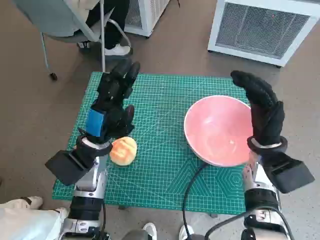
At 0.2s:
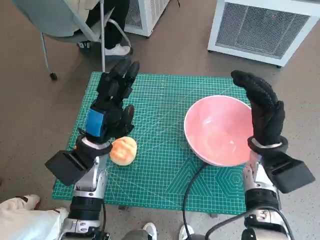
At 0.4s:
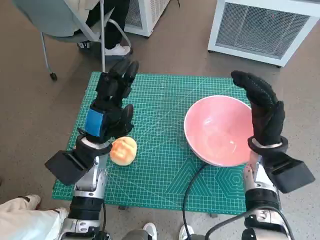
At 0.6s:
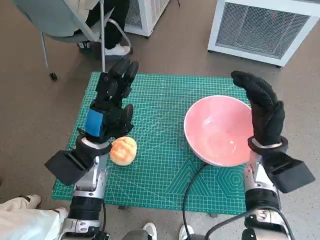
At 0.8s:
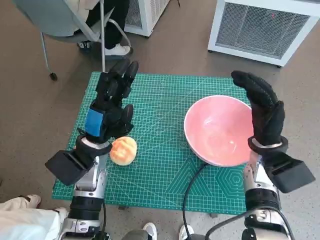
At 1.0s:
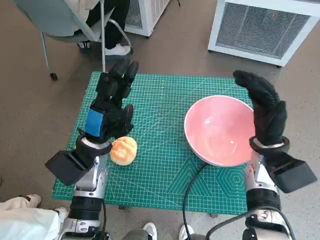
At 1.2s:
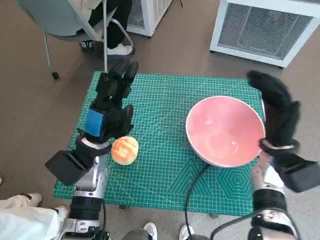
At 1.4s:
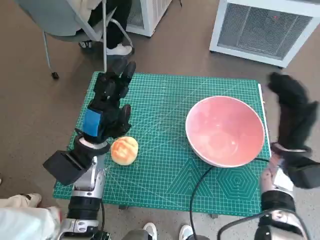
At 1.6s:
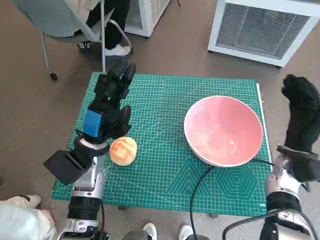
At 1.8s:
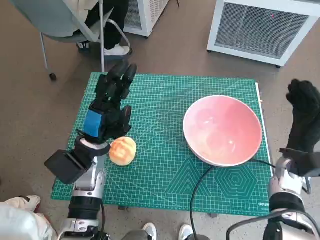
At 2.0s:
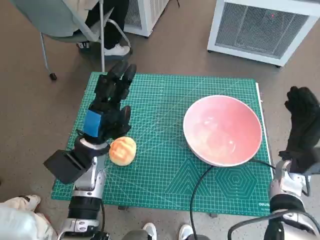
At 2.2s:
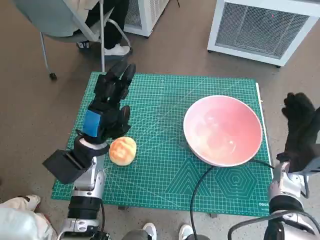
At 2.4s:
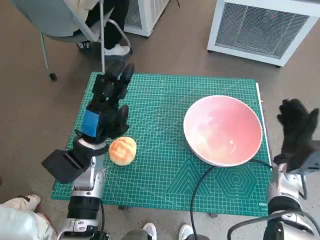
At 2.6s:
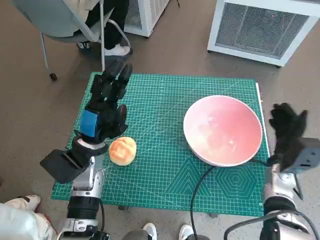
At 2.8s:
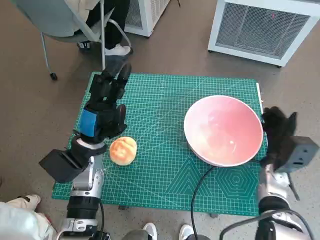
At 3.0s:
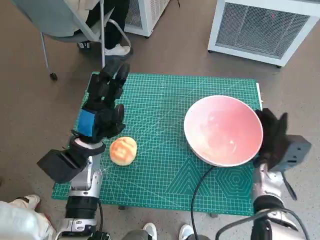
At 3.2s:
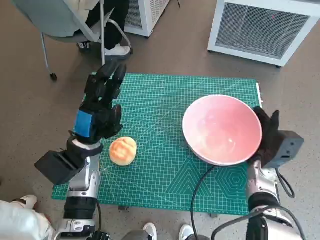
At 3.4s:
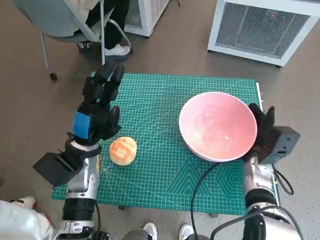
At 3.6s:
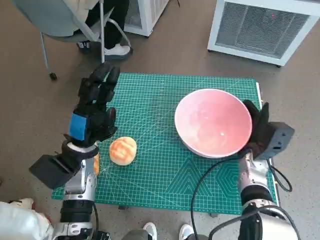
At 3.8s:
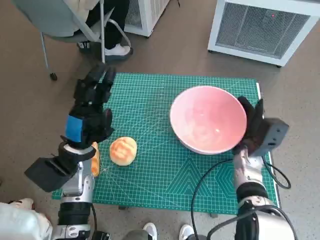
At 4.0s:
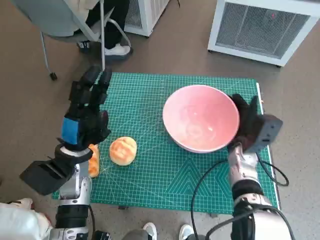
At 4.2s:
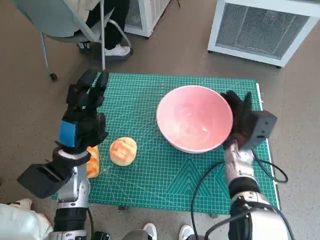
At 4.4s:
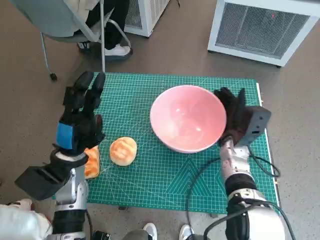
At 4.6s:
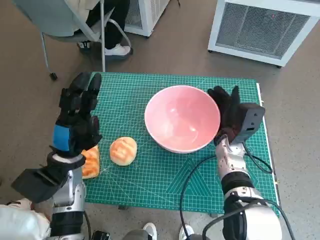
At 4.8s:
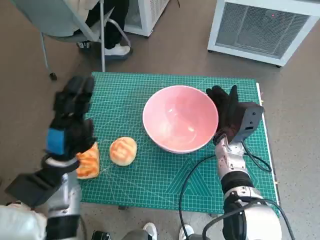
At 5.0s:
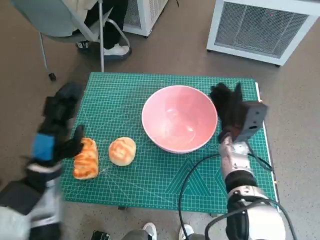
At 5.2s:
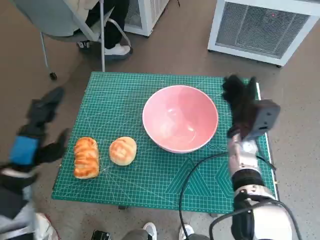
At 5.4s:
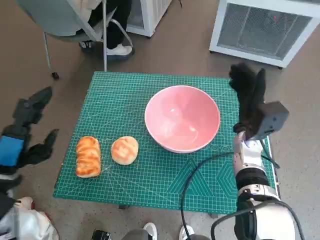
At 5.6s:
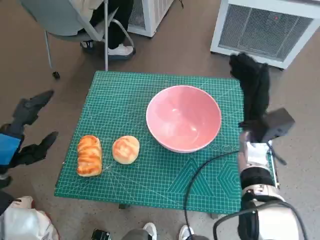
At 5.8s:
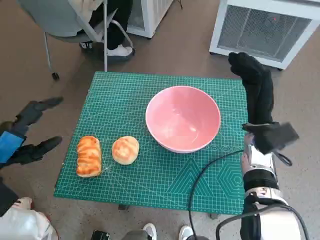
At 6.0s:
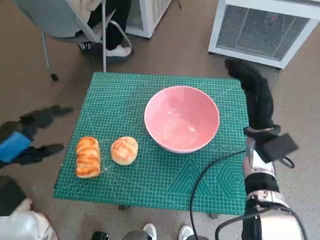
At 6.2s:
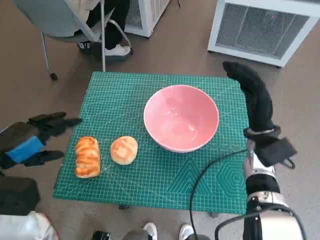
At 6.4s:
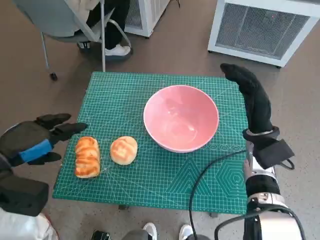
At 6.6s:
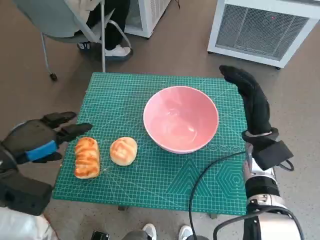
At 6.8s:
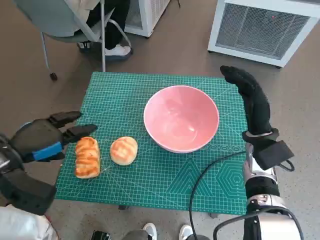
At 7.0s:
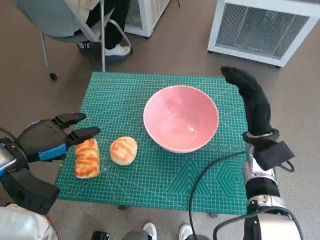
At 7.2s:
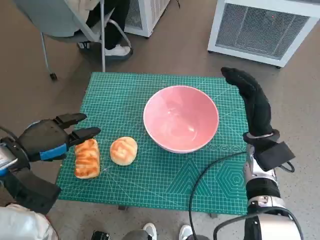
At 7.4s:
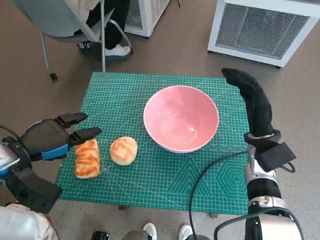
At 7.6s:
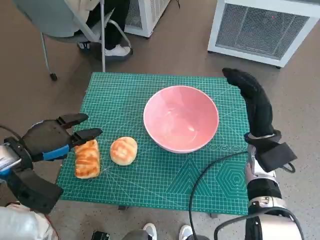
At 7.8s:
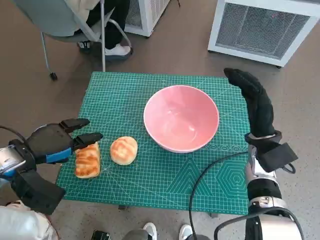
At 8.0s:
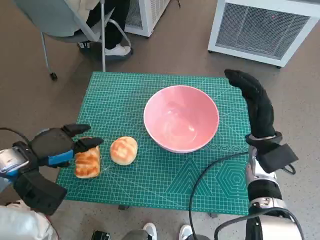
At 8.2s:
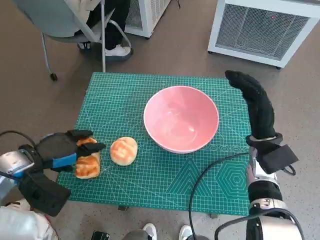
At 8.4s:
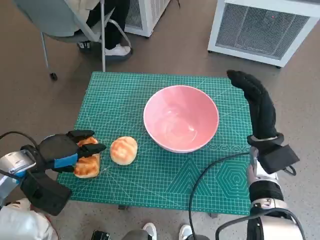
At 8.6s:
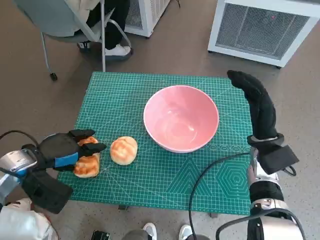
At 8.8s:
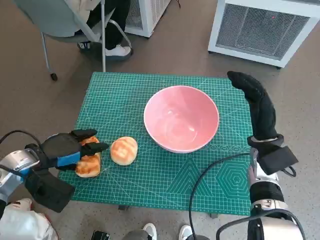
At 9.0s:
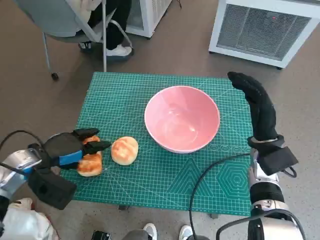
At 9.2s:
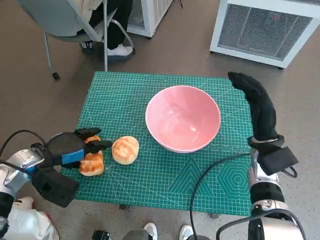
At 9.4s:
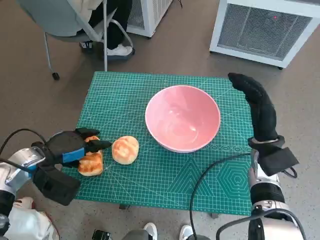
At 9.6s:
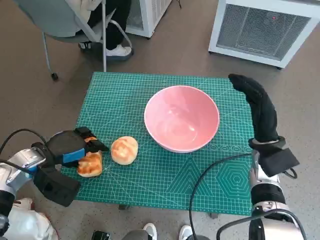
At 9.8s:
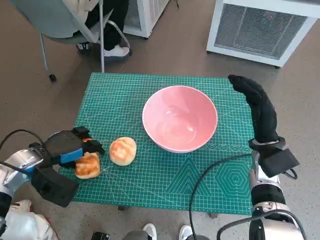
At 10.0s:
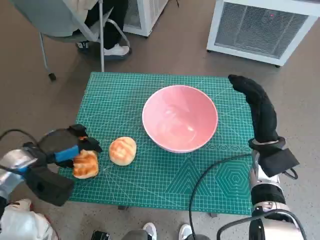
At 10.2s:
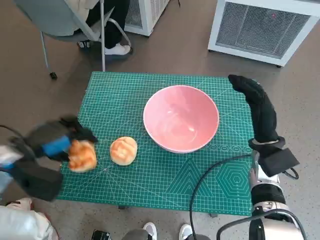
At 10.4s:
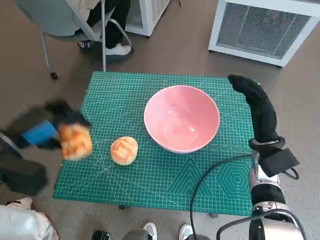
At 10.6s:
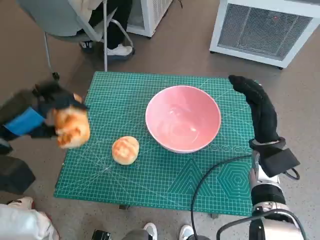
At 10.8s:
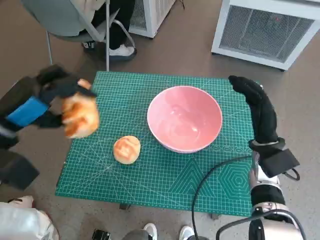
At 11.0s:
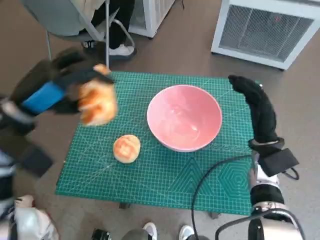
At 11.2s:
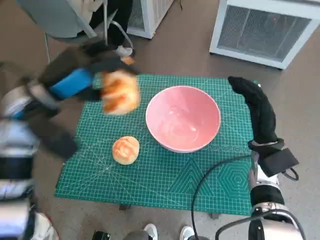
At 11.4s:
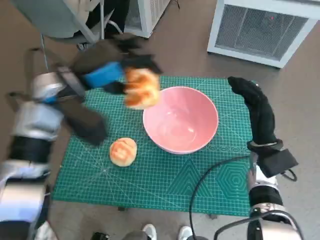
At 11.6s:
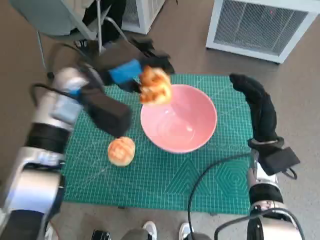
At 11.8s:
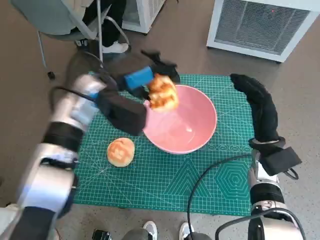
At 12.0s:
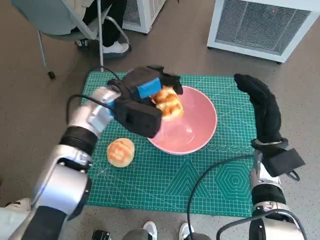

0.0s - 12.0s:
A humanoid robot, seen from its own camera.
Task of the whole recording: Push the bowl to the center of the table and put the bread into the bowl.
Step, 0.0s - 5.8s: Move the pink bowl to the center of table with right hand.
Step, 6.0s - 9.0s: Grasp the long bread with left hand.
1.6s - 3.0s: The right hand shifts some 5 cm downward.
3.0s - 4.4s: The right hand shifts approximately 10 cm to the left.
4.4s - 6.0s: The left hand travels to the left, upward and backward by approximately 15 cm. The right hand goes approximately 5 cm upward.
6.0s - 7.6s: The left hand shifts by some 5 cm.
7.6s - 9.0s: The left hand shifts by roughly 5 cm.
9.0s - 10.4s: The left hand is displaced upward by roughly 5 cm.
10.4s - 12.0s: The left hand goes some 20 cm to the right and forward.

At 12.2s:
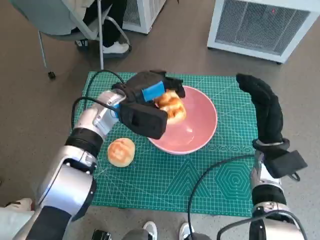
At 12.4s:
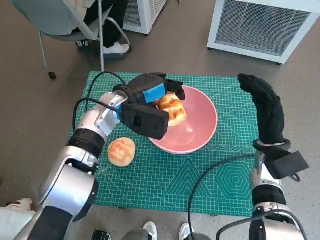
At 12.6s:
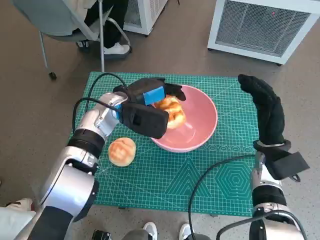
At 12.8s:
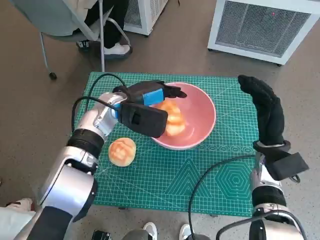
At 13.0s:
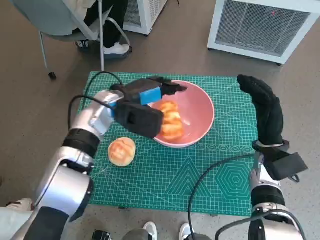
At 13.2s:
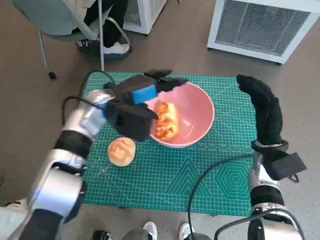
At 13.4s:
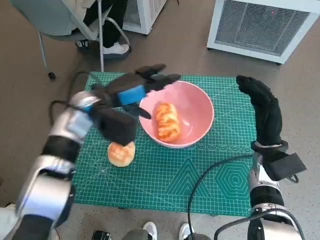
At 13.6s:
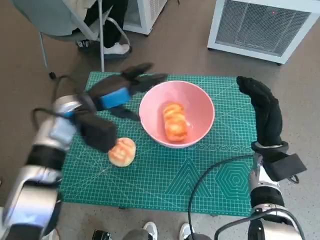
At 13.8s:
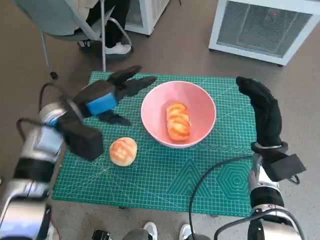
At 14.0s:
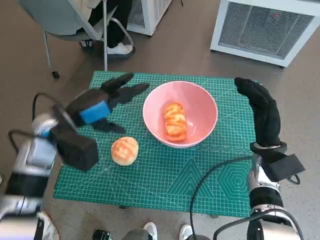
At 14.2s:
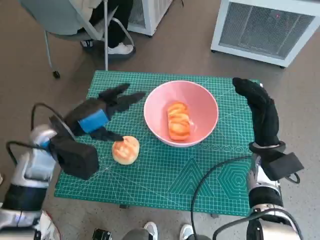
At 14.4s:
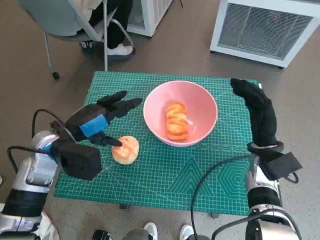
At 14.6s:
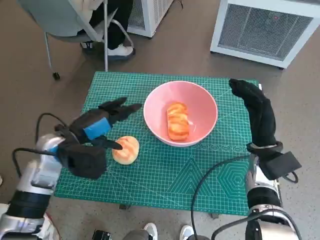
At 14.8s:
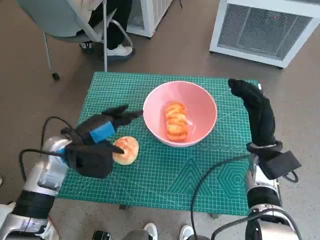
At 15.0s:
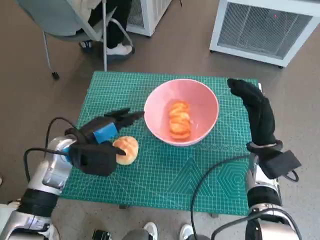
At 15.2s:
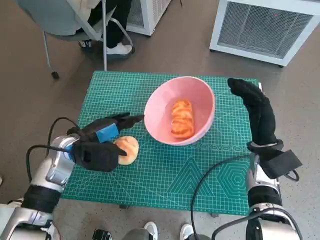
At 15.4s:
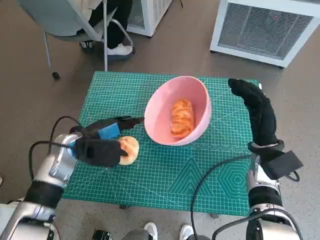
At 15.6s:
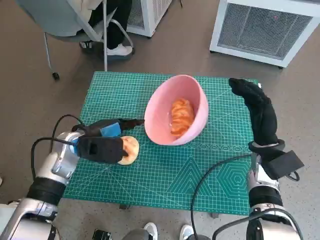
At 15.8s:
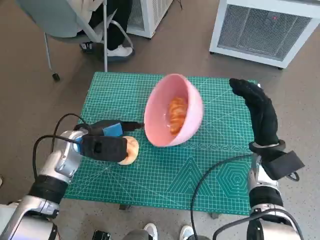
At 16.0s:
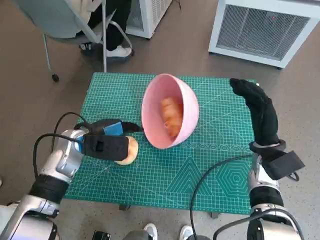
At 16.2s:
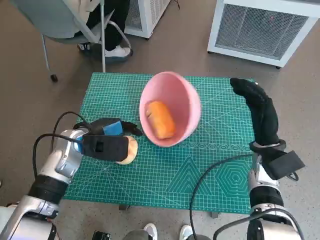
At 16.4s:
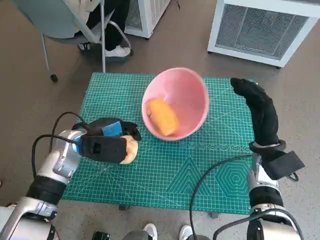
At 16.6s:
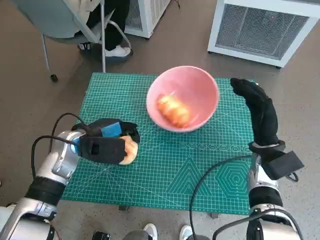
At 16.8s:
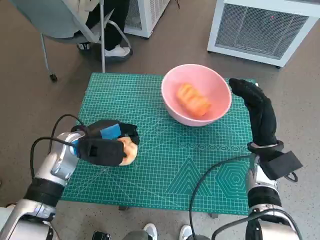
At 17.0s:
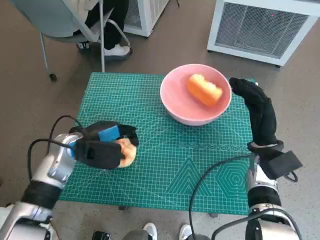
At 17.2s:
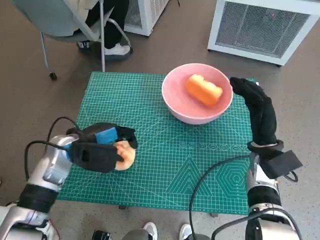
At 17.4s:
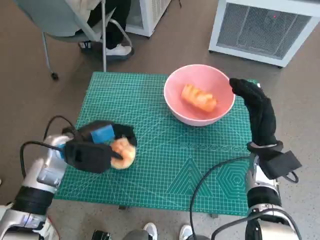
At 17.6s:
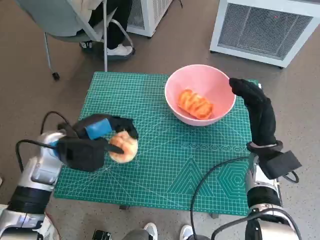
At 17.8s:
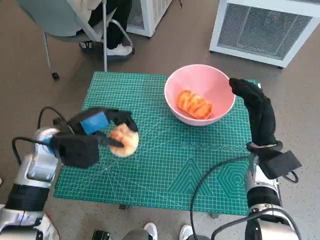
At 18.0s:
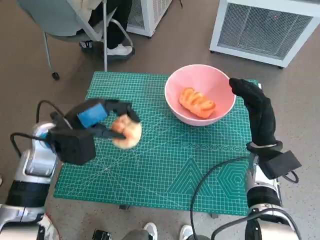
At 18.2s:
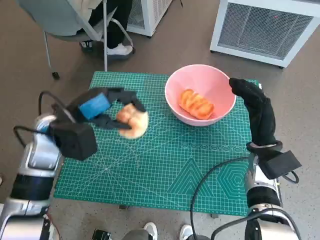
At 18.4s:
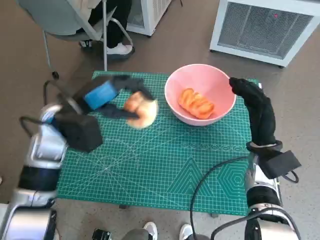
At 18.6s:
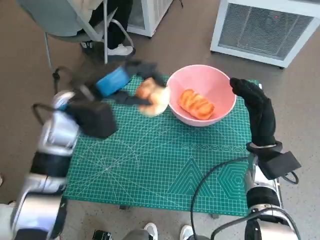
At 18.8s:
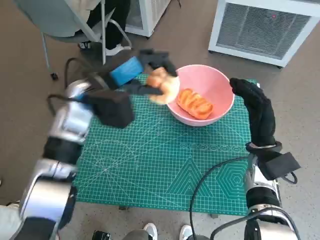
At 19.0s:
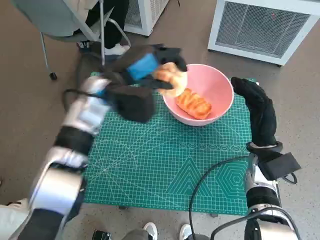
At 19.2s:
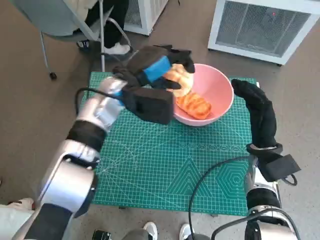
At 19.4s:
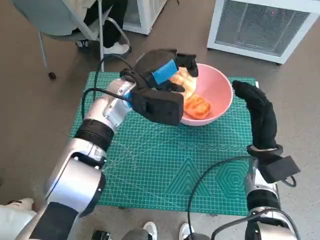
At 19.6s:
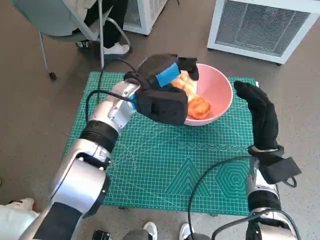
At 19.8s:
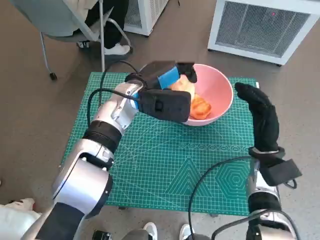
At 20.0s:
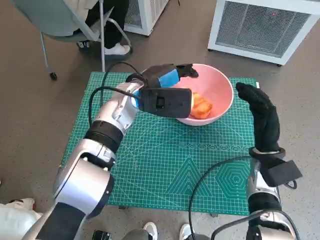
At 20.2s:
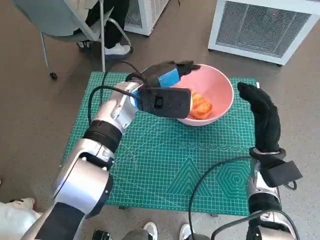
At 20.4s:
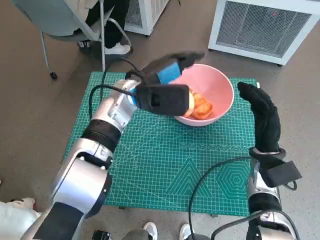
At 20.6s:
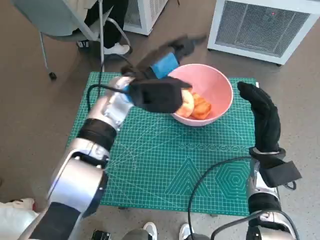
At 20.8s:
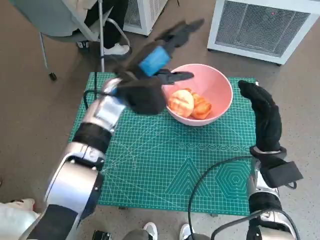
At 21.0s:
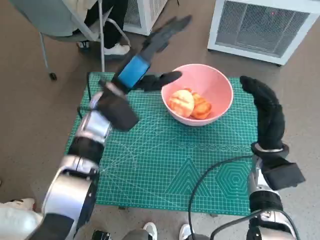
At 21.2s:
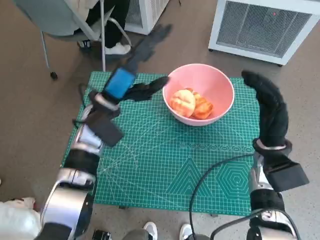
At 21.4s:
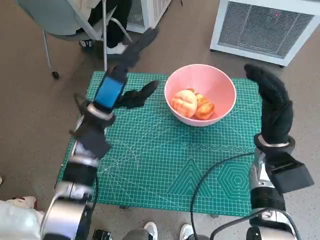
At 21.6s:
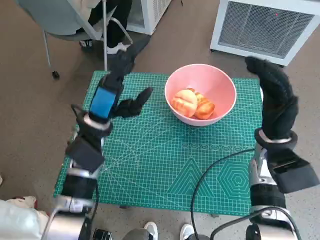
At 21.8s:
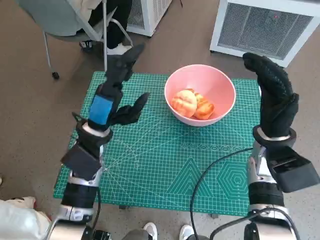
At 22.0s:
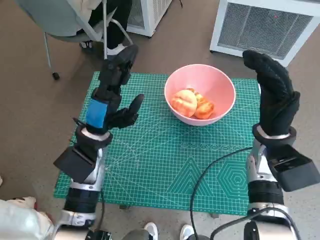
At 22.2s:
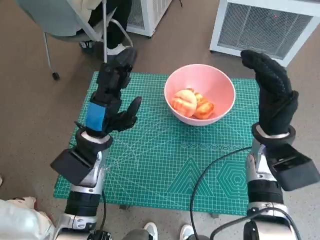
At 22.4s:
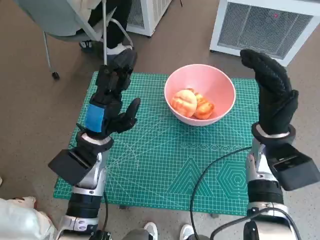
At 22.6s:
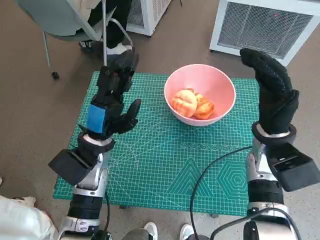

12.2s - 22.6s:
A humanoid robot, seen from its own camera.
Task of the whole recording: Push the bowl to the center of the table and put the bread into the bowl.
Step, 13.6s - 16.6s: Grasp the round bread with left hand.
Step, 16.8s - 20.2s: Place the round bread in pink bowl with left hand.
12.2s - 13.6s: The left hand shifts approximately 5 cm to the left.
13.6s - 15.2s: The left hand shifts some 10 cm downward and backward.
15.2s - 16.6s: The hands move only a little.
16.6s - 18.2s: The left hand heads upward, covering approximately 5 cm.
18.2s - 19.6s: The left hand shifts some 15 cm to the right and forward.
19.6s - 21.2s: The left hand is displaced to the left by about 5 cm.
21.2s - 22.6s: The left hand travels backward by about 5 cm; the right hand ends up approximately 5 cm from where it was.
